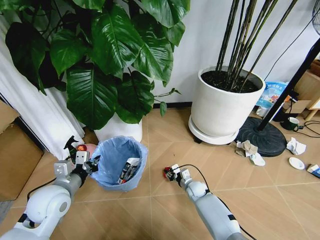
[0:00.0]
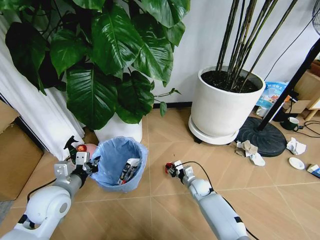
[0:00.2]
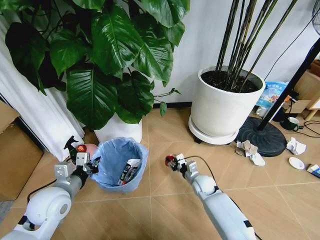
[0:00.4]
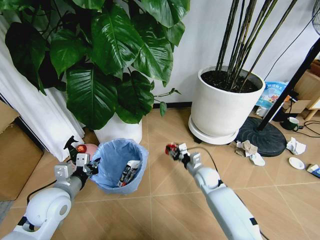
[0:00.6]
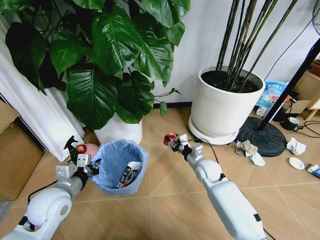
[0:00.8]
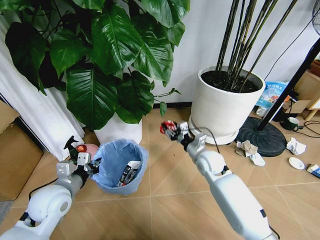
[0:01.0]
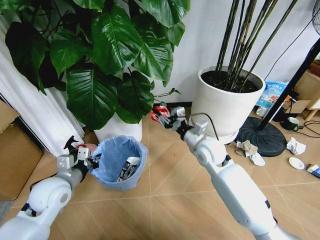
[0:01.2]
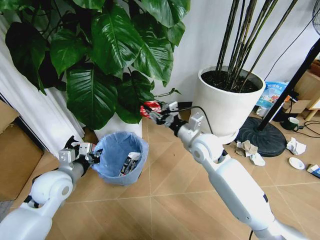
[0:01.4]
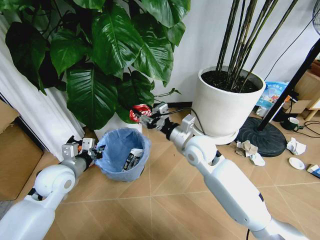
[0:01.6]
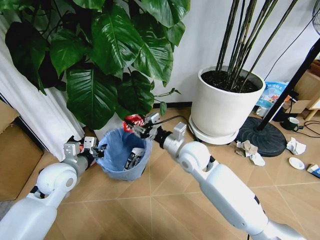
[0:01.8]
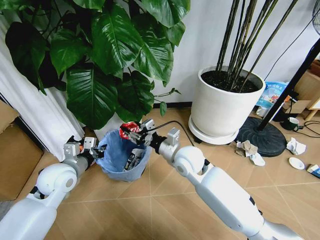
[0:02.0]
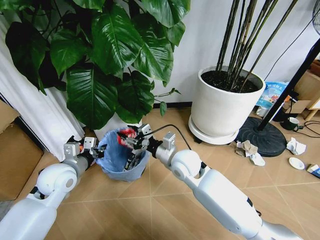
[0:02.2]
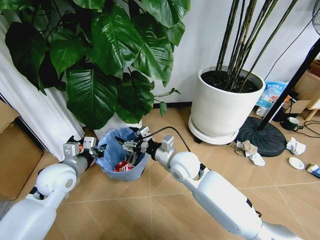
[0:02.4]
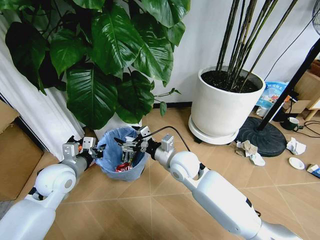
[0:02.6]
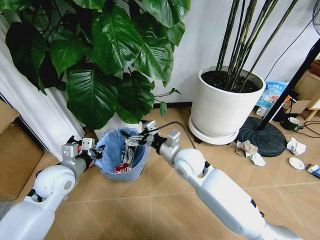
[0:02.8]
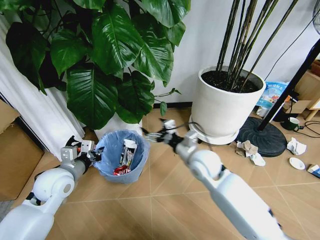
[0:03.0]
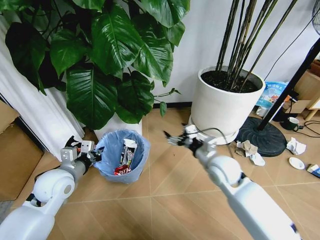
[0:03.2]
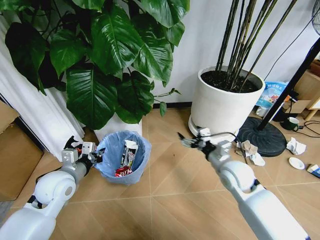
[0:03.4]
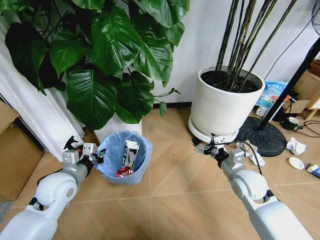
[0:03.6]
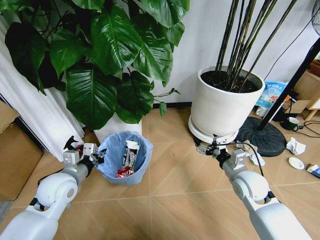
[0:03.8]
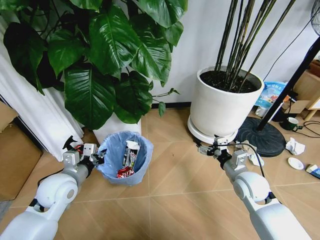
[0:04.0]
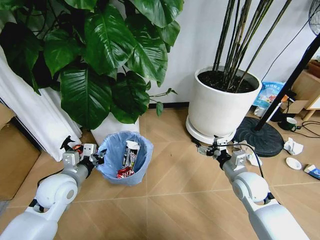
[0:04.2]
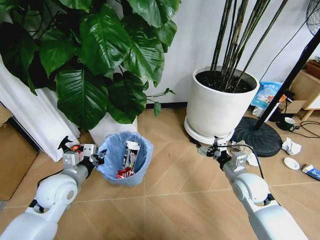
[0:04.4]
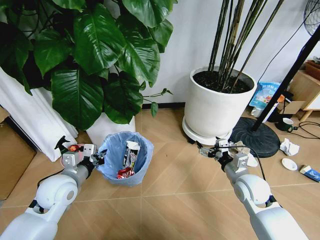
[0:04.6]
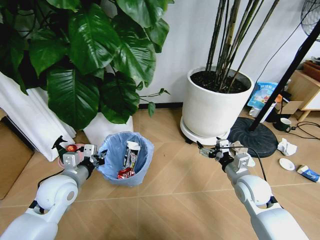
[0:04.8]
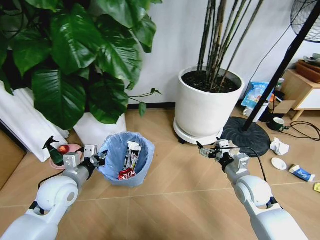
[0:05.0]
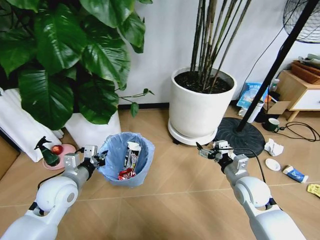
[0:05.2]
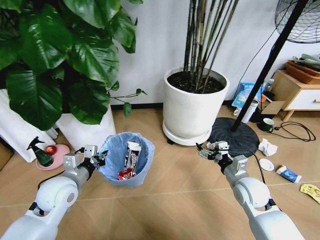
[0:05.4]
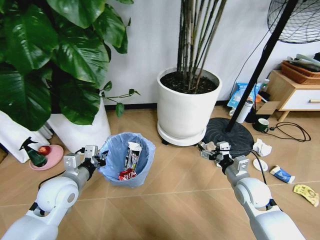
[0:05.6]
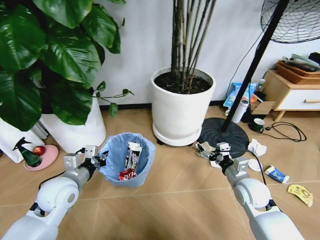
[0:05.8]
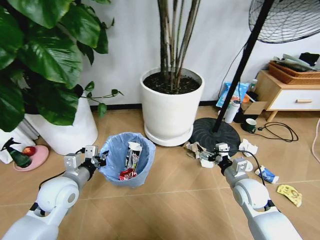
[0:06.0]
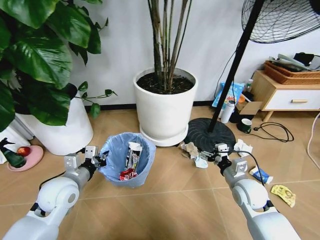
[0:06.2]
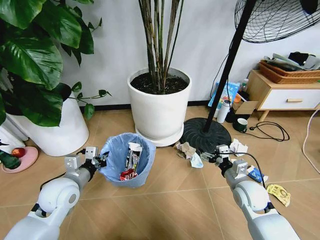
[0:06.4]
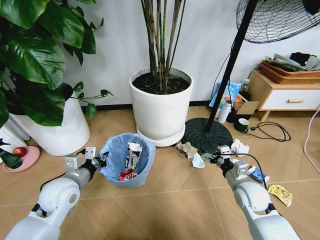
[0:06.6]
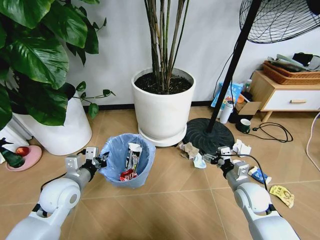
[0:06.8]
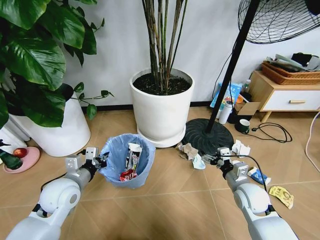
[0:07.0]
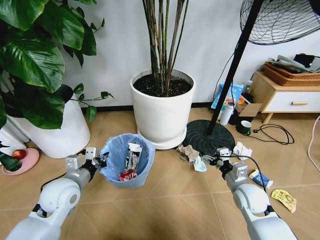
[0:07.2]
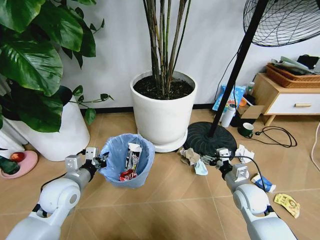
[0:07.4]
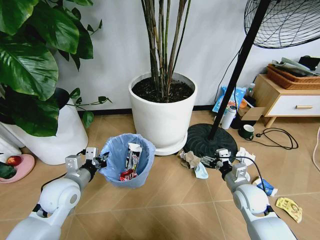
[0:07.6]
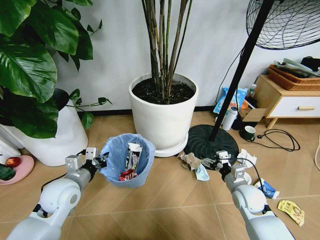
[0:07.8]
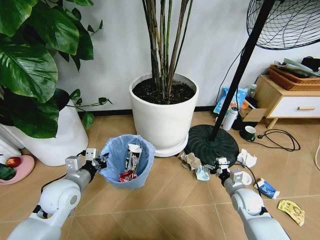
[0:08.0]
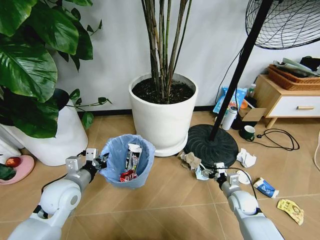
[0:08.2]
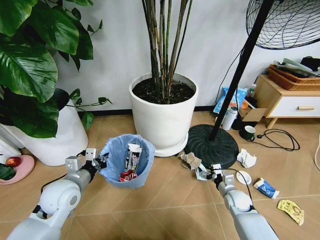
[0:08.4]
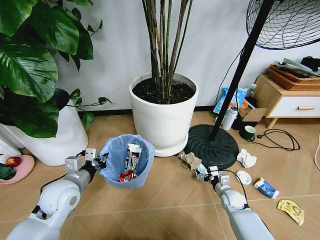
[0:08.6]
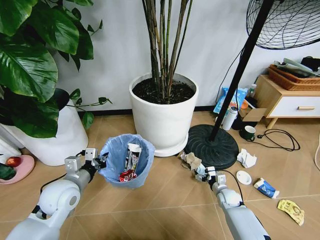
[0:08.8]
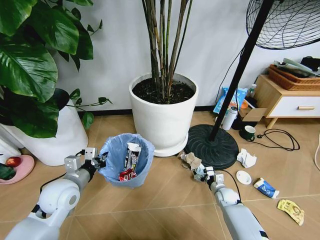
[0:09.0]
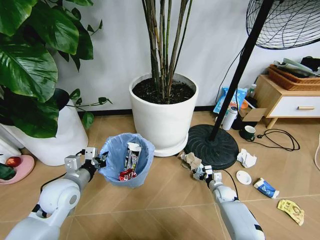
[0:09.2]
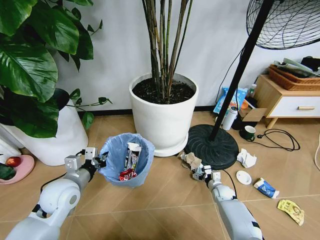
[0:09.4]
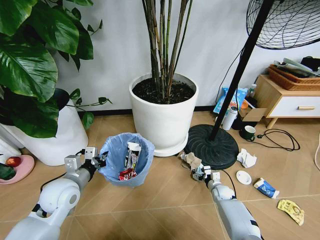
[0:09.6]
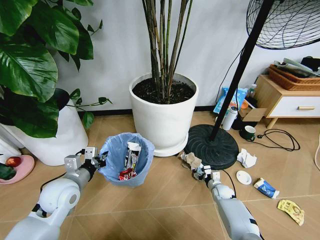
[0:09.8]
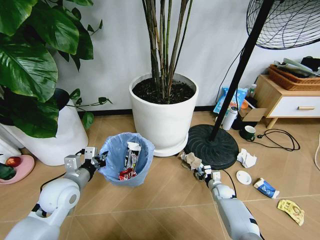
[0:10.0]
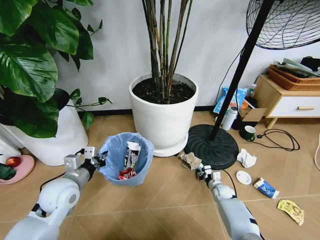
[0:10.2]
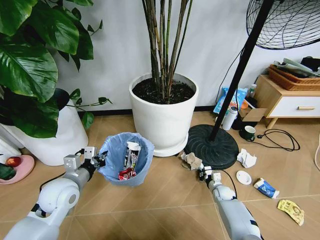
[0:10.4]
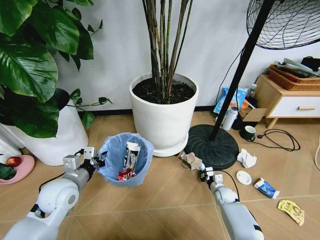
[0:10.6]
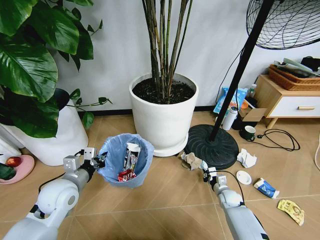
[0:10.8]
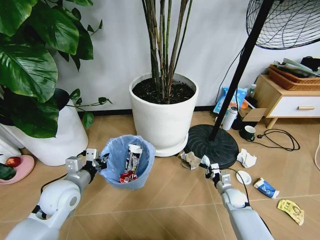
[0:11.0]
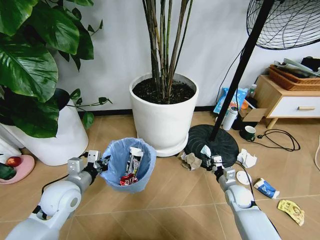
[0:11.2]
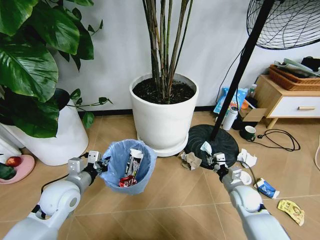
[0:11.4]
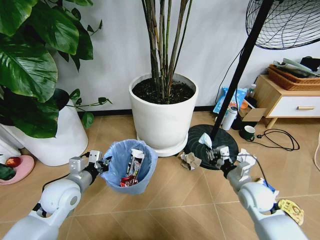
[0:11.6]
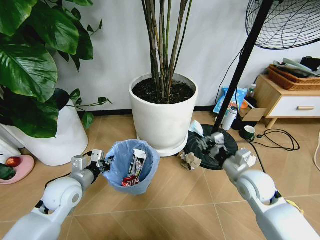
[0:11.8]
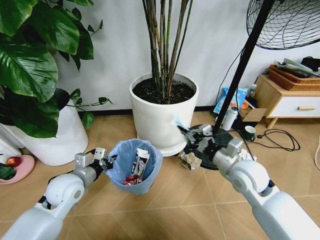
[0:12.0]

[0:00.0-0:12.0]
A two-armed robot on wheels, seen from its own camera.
Task of the whole recording: Pick up the trash bin and place the garbage on the floor into it.
0:00.0 to 0:01.6: The left gripper goes some 5 cm forward; the right gripper moves upward, approximately 35 cm.
0:01.6 to 0:03.0: The right gripper moves approximately 5 cm, and opens its fingers.
0:03.0 to 0:04.4: The right gripper shifts approximately 15 cm to the right and downward.
0:07.6 to 0:09.0: The right gripper travels downward by roughly 20 cm.
0:09.0 to 0:10.4: The right gripper closes its fingers.
0:10.4 to 0:12.0: The right gripper is displaced upward by roughly 35 cm.

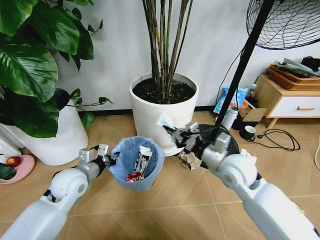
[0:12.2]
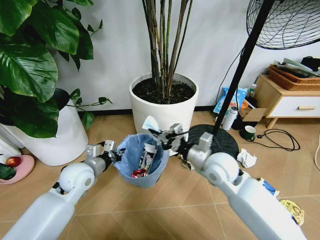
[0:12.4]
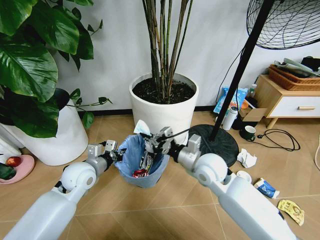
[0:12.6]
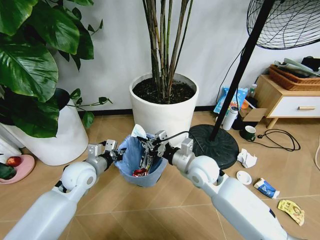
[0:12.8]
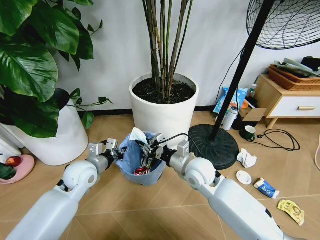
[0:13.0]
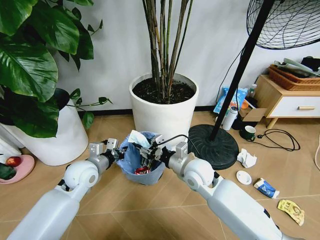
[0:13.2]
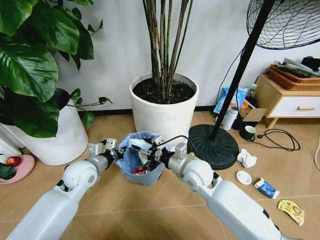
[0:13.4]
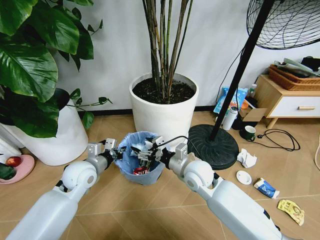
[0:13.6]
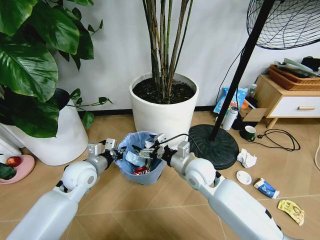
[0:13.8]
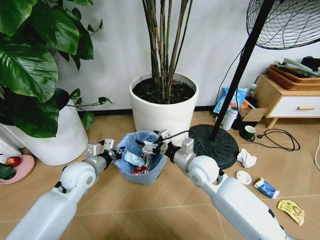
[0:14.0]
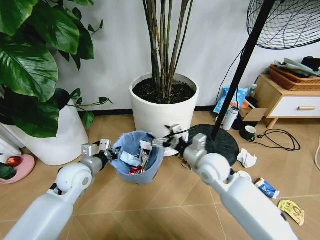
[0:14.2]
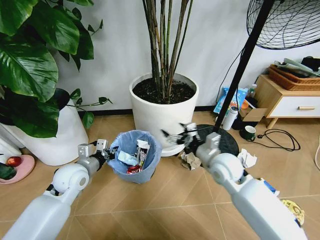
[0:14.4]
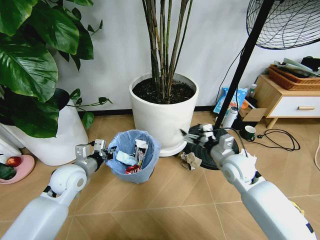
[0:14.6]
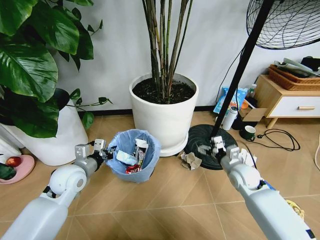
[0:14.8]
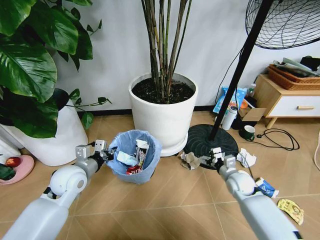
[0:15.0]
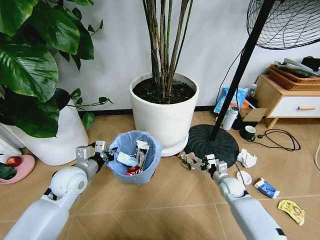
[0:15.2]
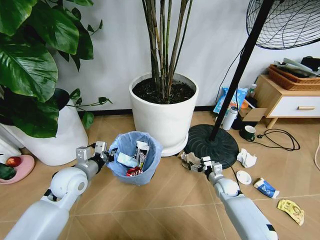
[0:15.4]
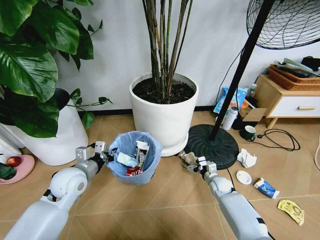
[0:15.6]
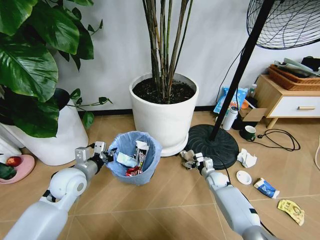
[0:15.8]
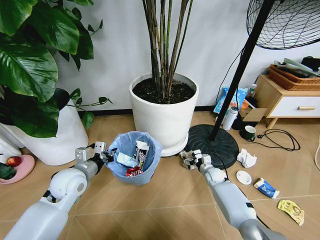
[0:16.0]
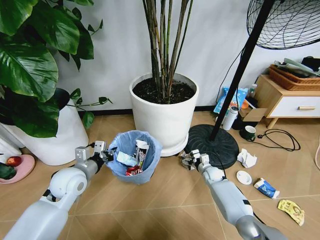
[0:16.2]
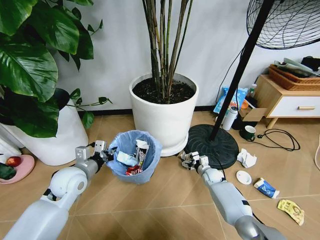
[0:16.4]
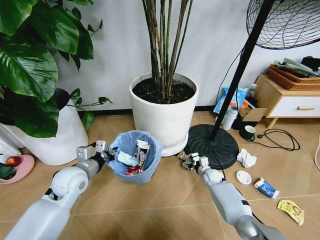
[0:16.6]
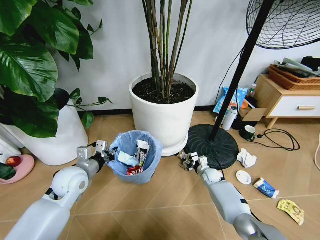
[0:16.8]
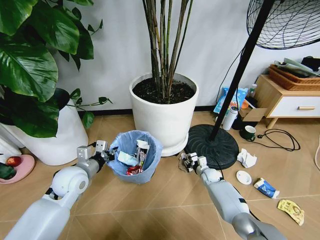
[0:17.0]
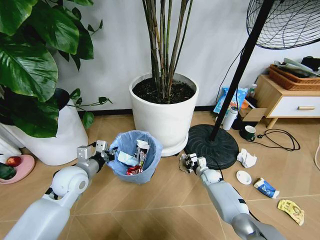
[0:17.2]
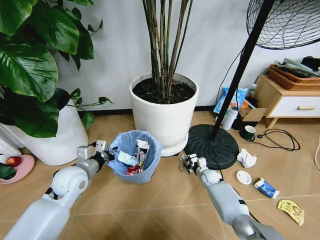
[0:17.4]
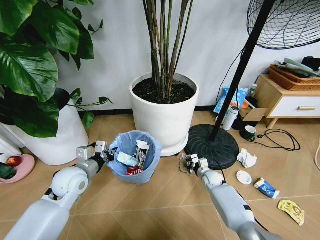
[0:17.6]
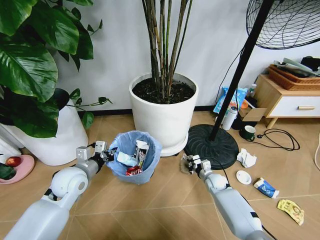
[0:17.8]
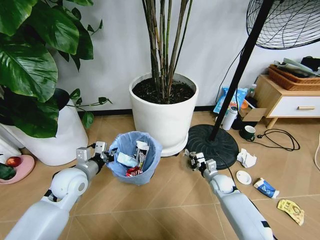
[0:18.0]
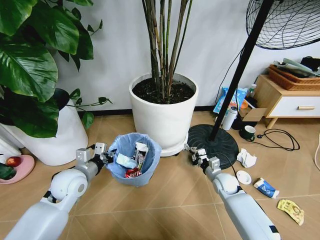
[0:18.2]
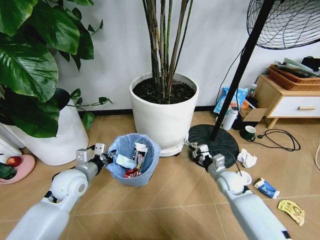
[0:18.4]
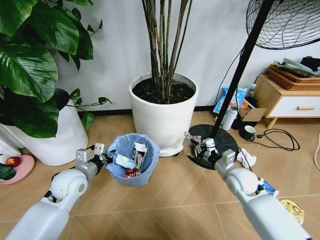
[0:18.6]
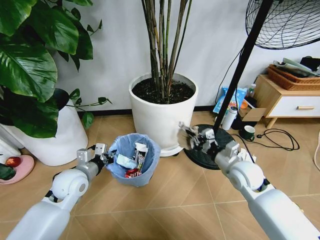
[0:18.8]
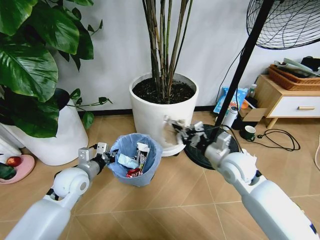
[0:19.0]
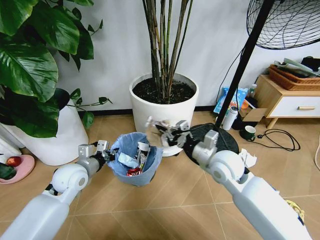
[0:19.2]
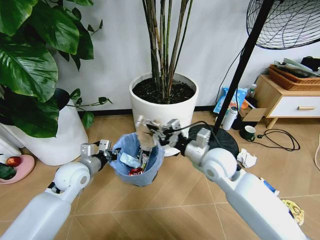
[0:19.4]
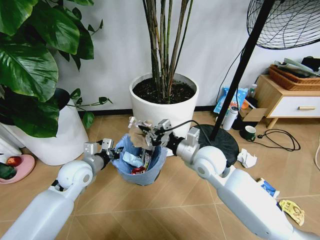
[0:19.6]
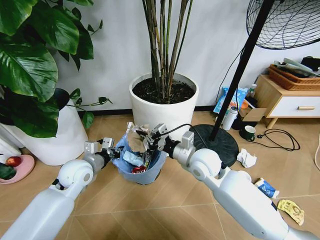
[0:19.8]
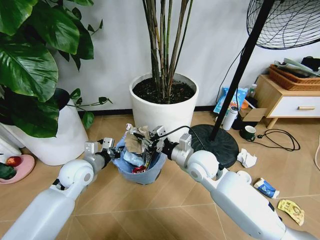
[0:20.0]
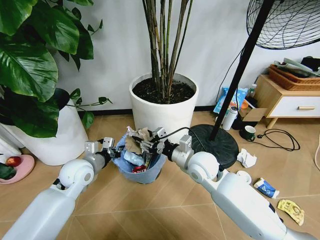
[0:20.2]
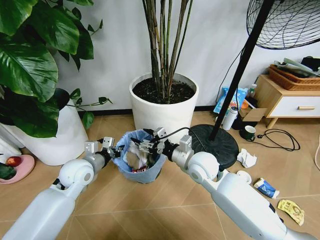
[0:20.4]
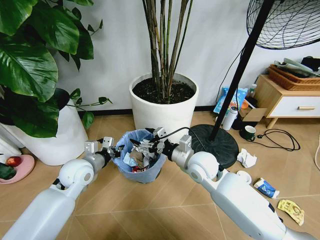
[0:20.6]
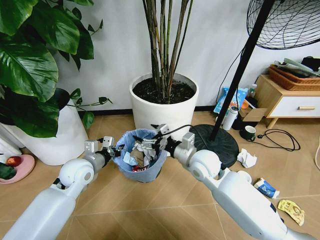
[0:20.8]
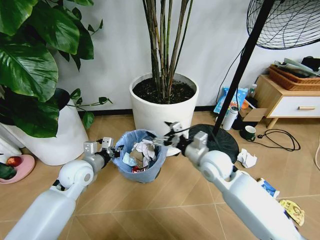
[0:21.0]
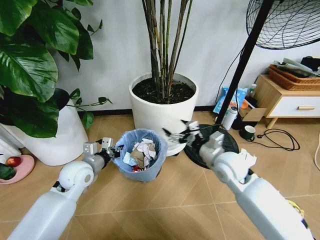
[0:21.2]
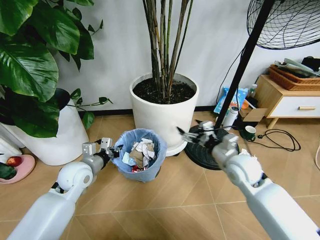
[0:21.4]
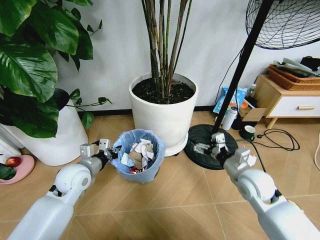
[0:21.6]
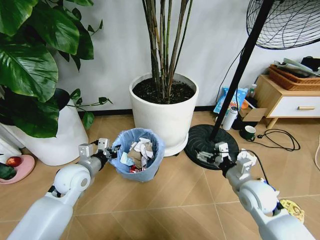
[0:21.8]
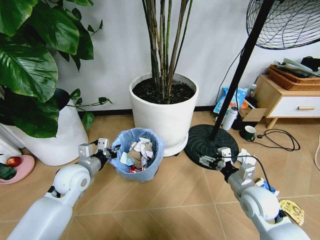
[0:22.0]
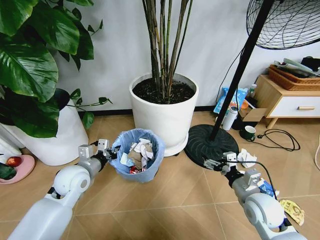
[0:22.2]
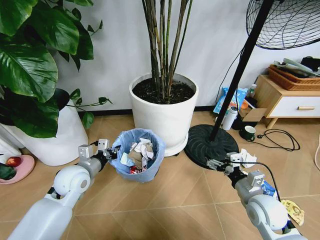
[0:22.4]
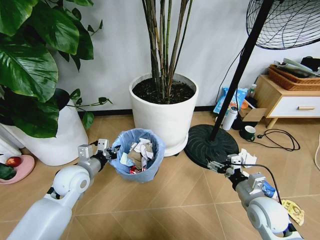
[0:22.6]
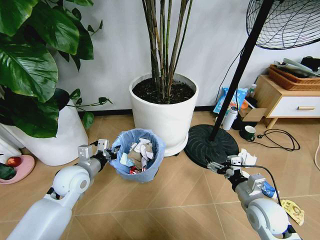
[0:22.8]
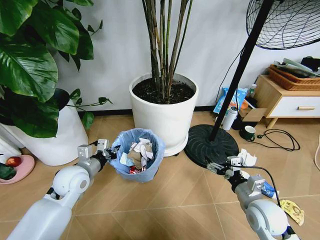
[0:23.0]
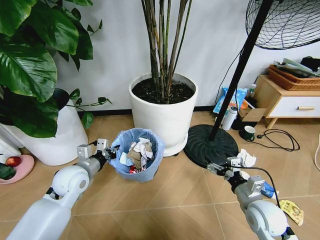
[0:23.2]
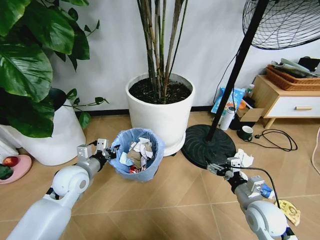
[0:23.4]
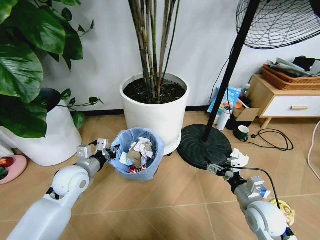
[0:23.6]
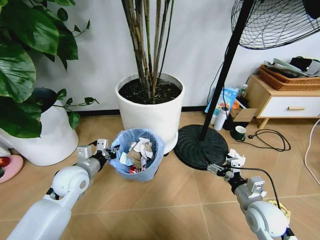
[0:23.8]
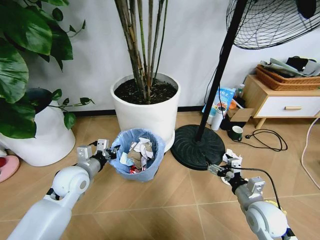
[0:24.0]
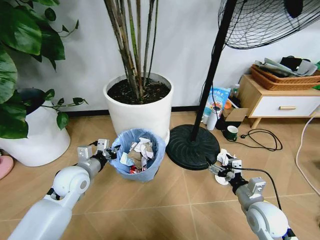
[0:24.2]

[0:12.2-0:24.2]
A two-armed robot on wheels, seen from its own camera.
Task of the whole recording: Pick up the trash bin and place the garbage on the floor into it.
0:12.2 to 0:13.8: The right gripper travels to the left and downward by some 10 cm, and opens its fingers.
0:13.8 to 0:15.2: The right gripper moves to the right and downward, about 25 cm.
0:15.2 to 0:16.6: The right gripper moves forward and downward, some 10 cm.
0:16.6 to 0:18.2: The right gripper is displaced upward and backward by some 10 cm, and closes its fingers.
0:18.2 to 0:19.8: The right gripper heads upward and to the left, covering approximately 25 cm.
0:19.8 to 0:21.2: The right gripper heads to the right, covering approximately 10 cm, and opens up.
0:21.2 to 0:22.6: The right gripper heads backward, to the right and downward, covering some 15 cm.
